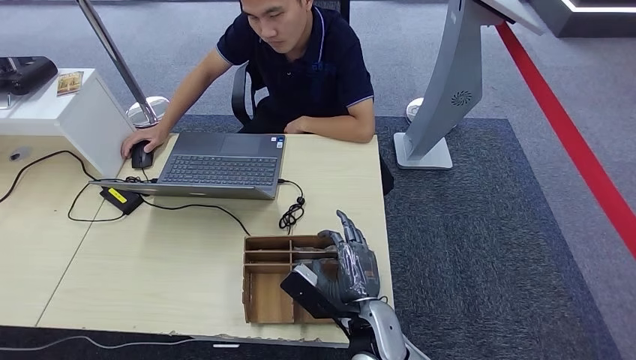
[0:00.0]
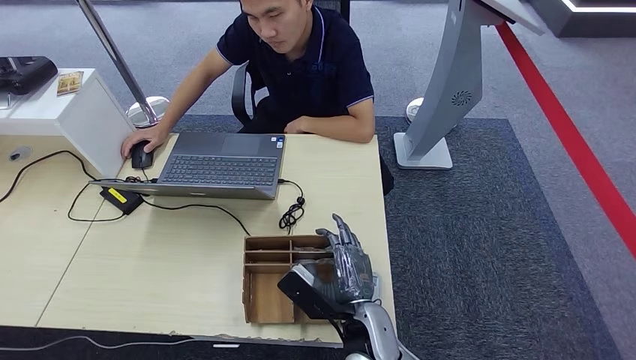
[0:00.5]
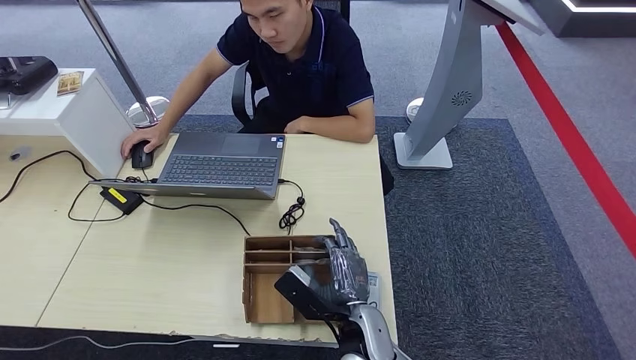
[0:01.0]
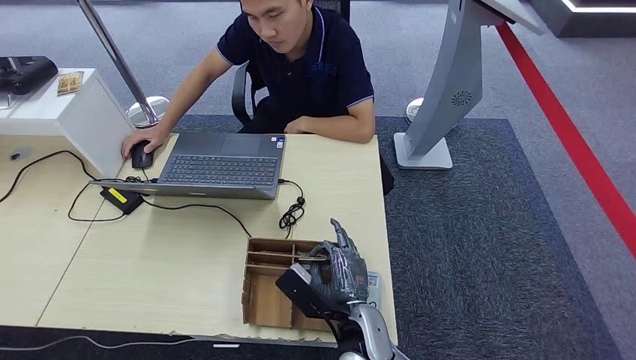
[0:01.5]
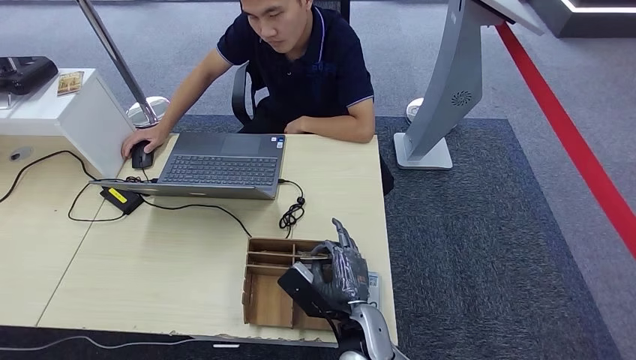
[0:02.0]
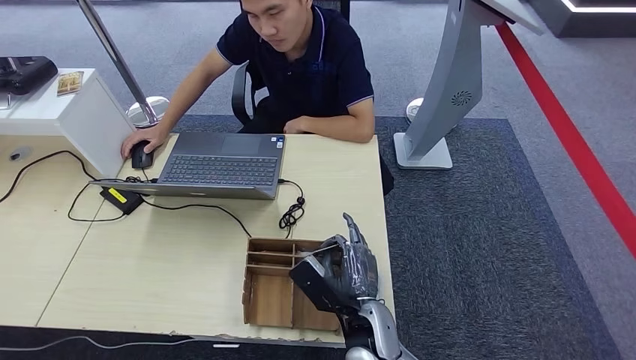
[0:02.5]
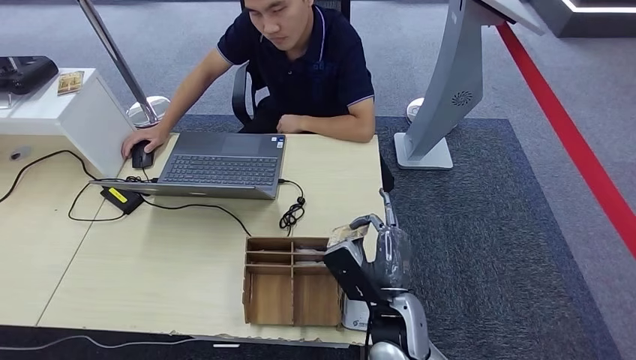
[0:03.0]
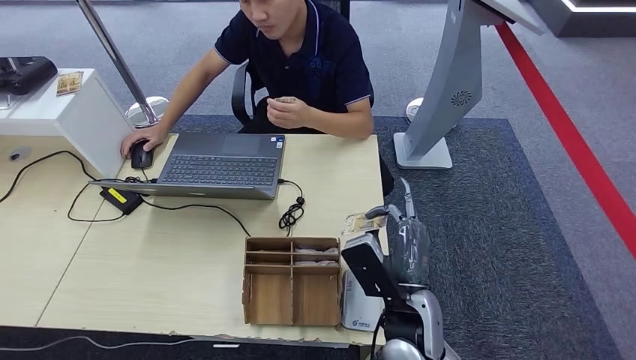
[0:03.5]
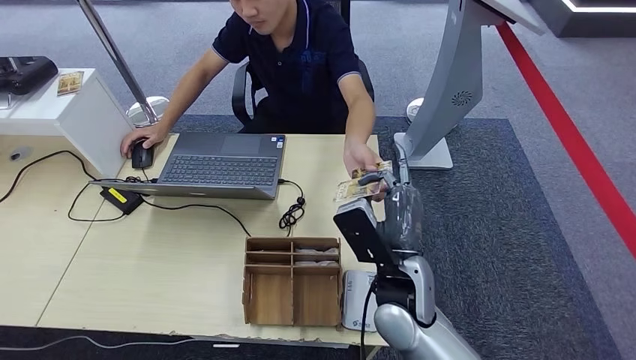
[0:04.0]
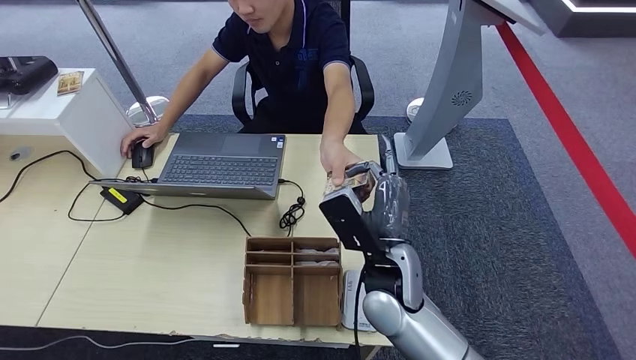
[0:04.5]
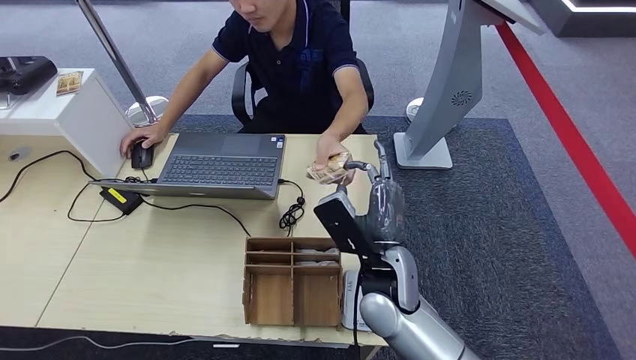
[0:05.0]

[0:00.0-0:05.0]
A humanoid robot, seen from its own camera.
Step, 0:00.0 to 0:02.0: Pick up the room key from the key card box.
Step, 0:02.5 to 0:05.0: Hand the room key to the person.
0:00.0 to 0:02.5: The hands make only small movements.
0:02.5 to 0:05.0: The right hand heads upward and forward, covering about 10 cm.
